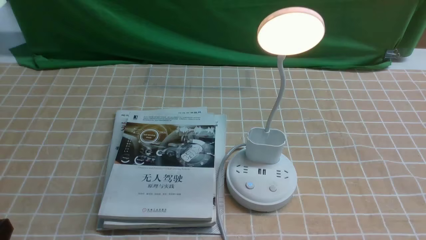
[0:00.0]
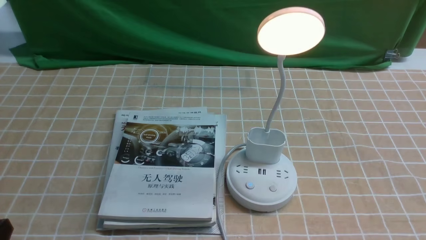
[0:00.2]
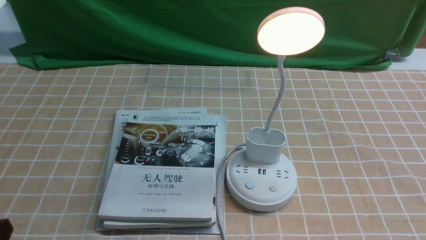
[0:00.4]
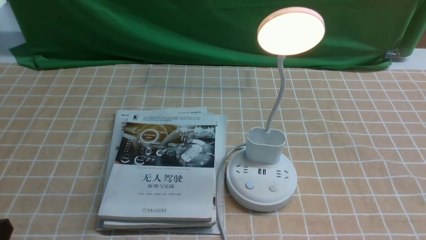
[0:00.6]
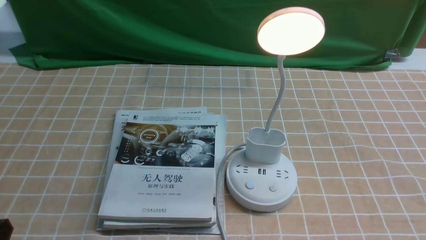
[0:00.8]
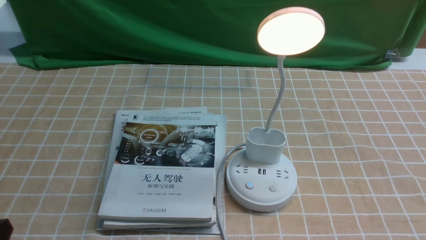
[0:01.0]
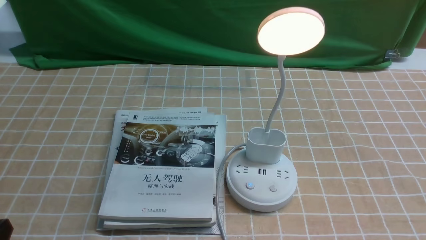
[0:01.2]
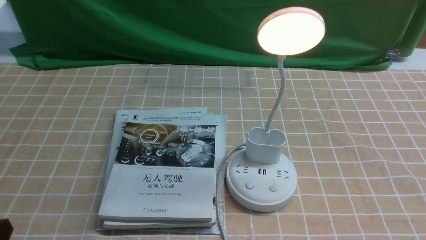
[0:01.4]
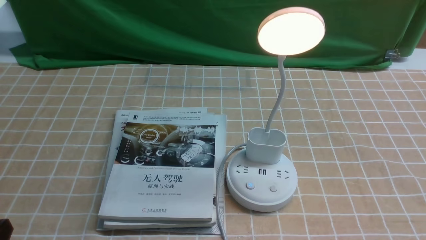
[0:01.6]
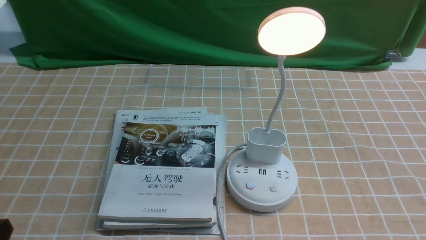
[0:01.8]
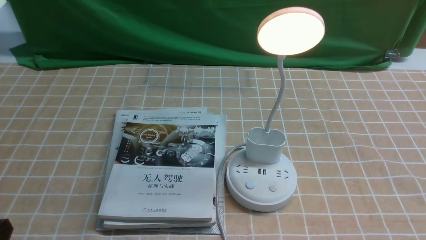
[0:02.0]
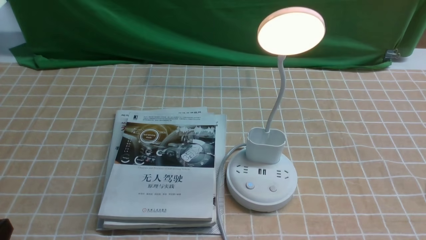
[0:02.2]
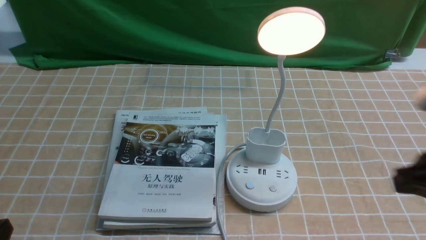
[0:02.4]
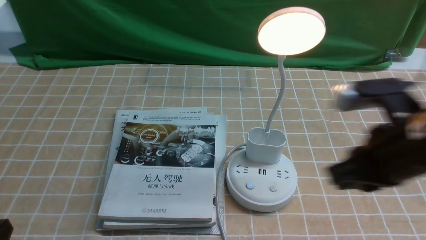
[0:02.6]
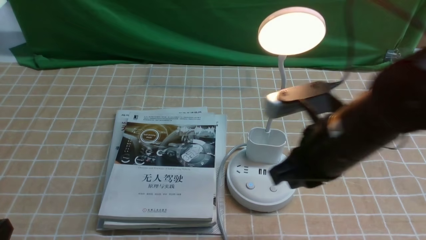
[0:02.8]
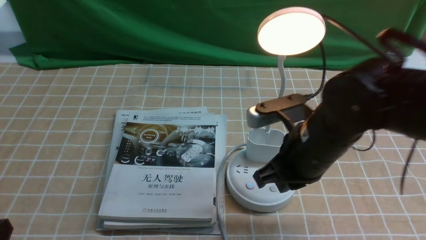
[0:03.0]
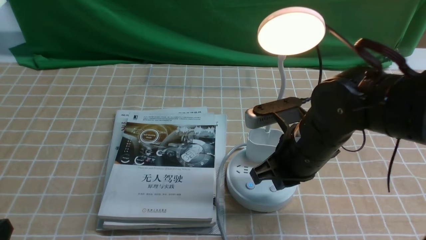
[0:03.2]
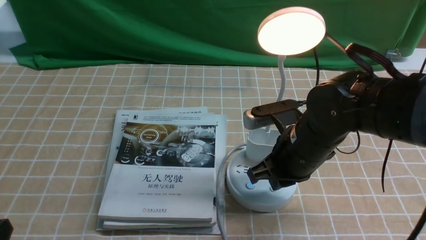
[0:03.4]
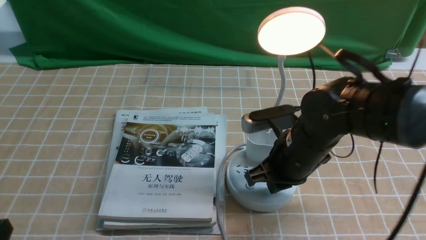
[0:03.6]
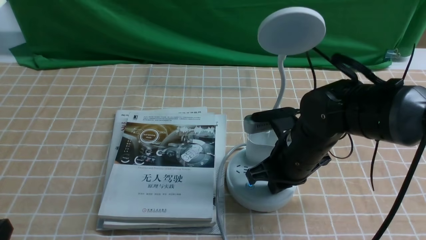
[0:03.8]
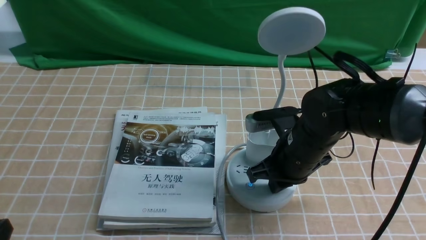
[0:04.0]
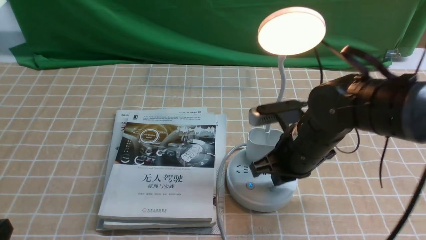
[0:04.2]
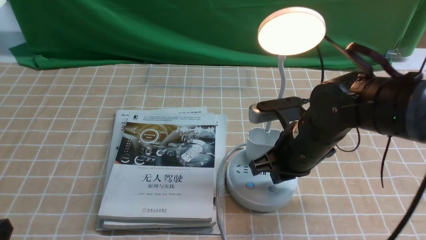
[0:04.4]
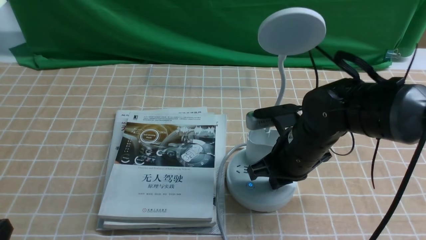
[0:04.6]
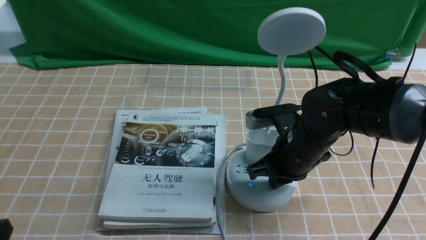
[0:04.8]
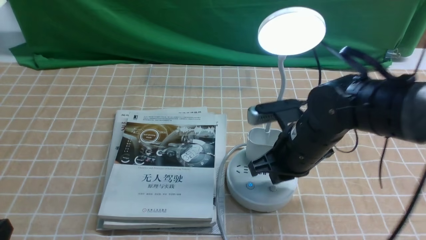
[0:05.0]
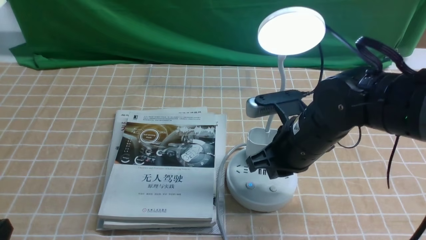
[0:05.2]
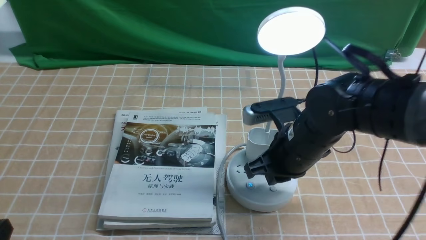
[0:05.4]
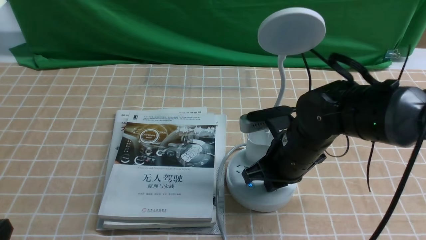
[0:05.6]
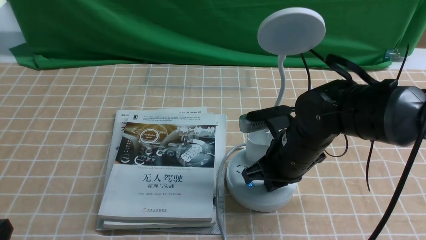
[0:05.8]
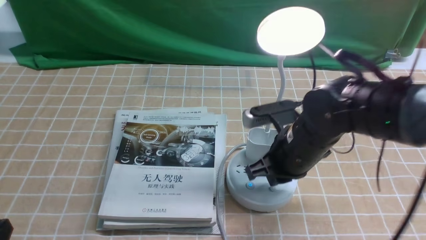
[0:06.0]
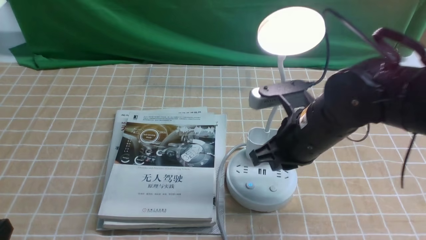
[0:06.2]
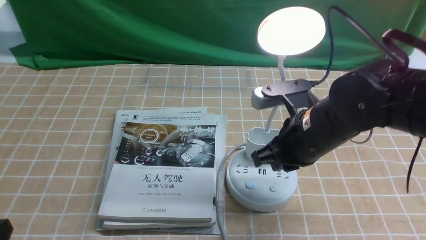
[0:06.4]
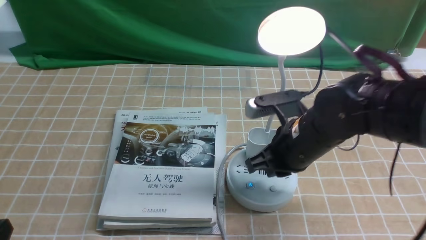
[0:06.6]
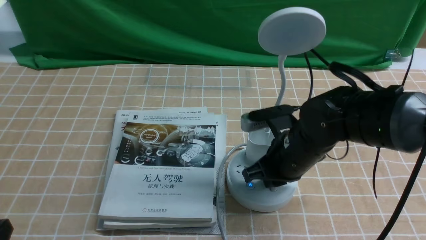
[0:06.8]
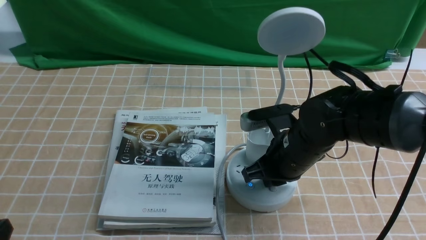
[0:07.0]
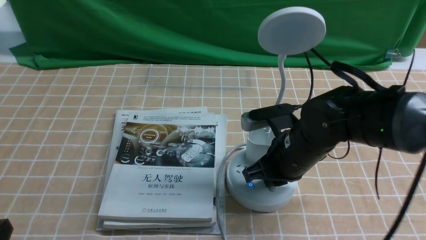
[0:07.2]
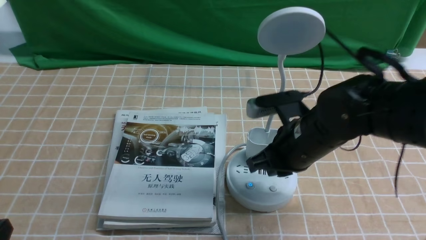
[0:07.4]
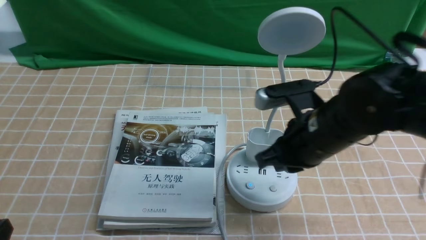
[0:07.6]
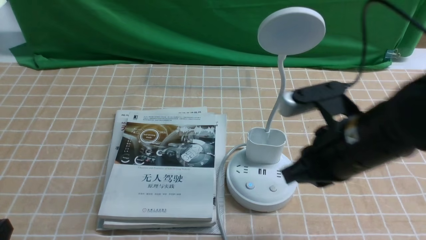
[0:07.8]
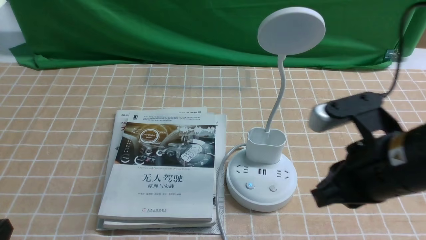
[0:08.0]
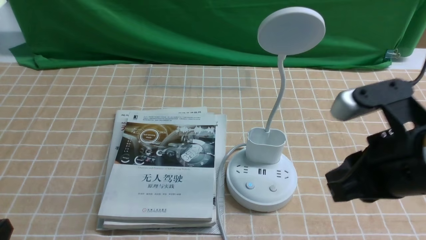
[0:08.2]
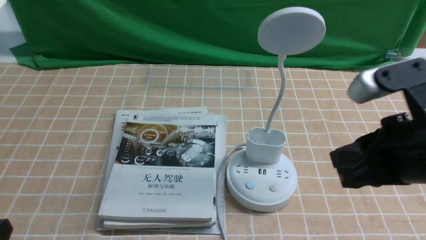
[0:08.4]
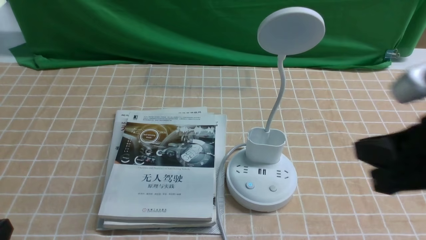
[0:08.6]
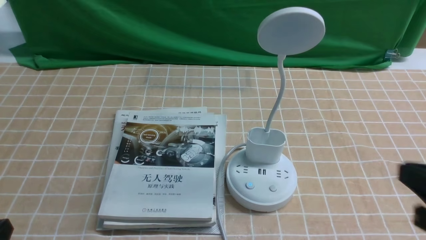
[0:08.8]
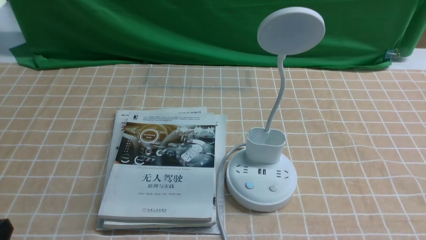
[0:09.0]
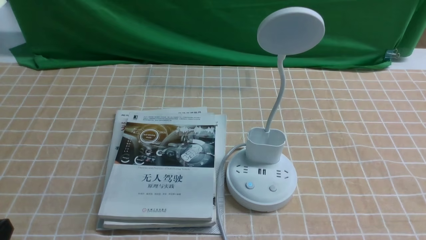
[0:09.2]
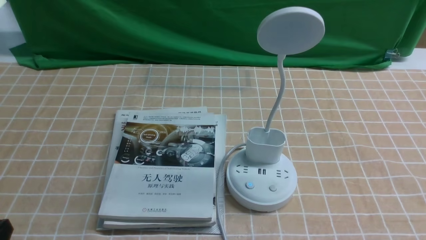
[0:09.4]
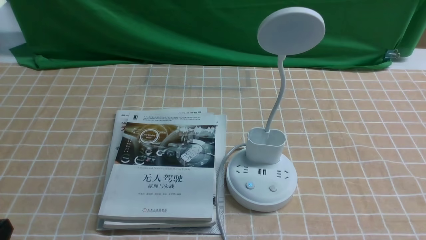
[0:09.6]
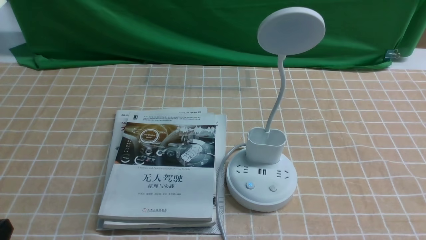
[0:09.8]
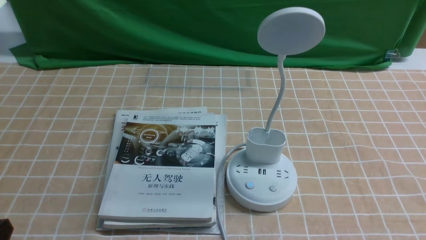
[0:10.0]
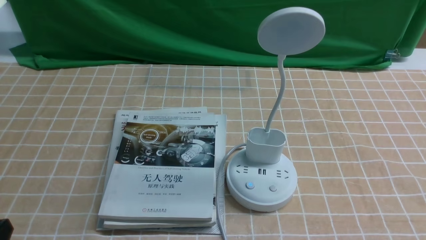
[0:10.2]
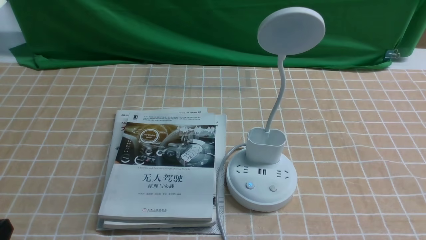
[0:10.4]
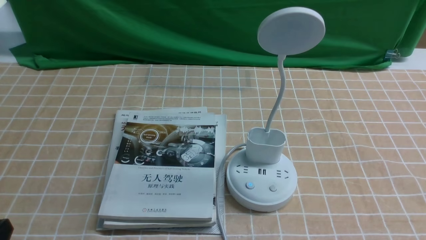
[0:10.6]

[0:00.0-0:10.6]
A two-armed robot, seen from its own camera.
Task of the whole recording: turn off the desk lamp on the light coffee tablecloth by hand.
Step, 0:00.0 to 0:07.2: use the right arm to press the button switch on the lamp holder.
0:01.6 to 0:03.0: The right gripper moves forward and to the left, about 25 cm, and closes its fingers.
0:03.0 to 0:04.6: The right gripper travels downward by some 5 cm.
0:07.6 to 0:09.0: The right gripper goes roughly 25 cm backward and to the right.

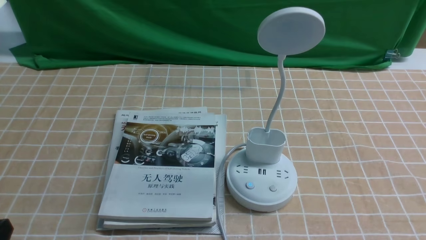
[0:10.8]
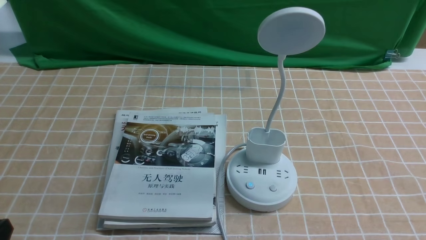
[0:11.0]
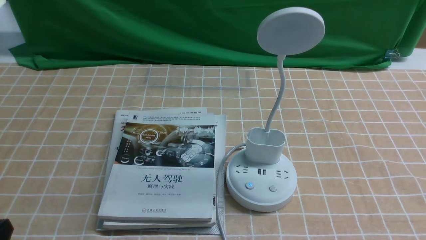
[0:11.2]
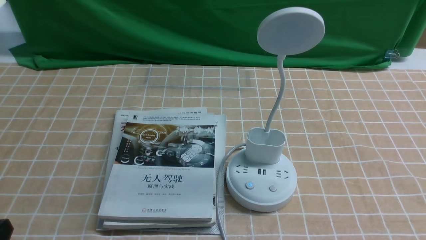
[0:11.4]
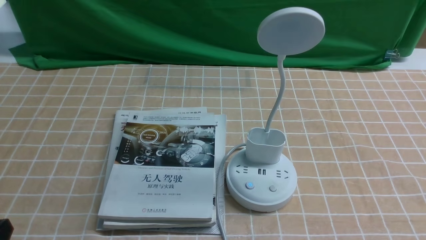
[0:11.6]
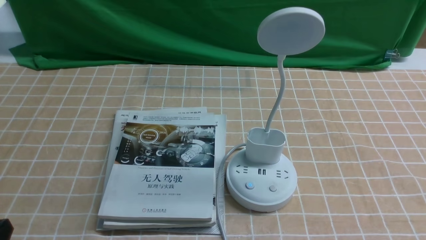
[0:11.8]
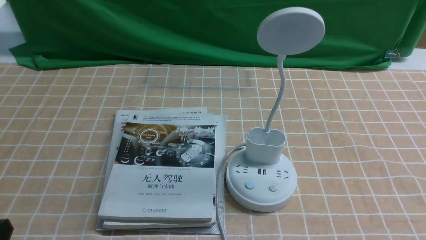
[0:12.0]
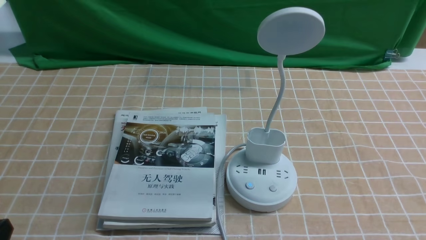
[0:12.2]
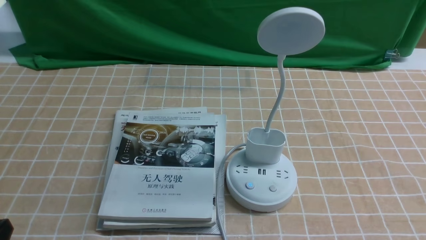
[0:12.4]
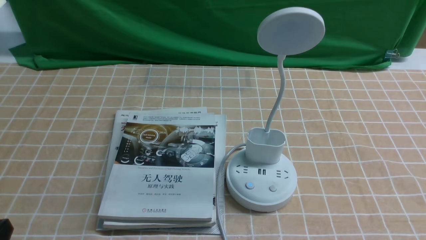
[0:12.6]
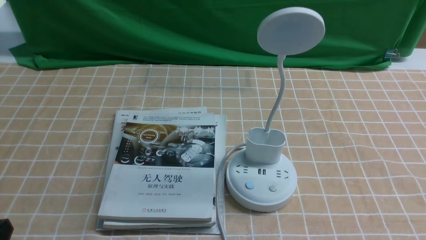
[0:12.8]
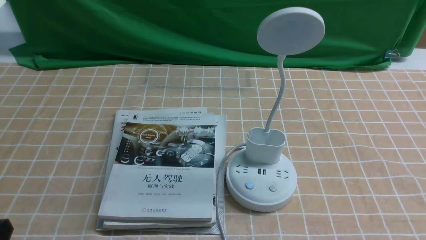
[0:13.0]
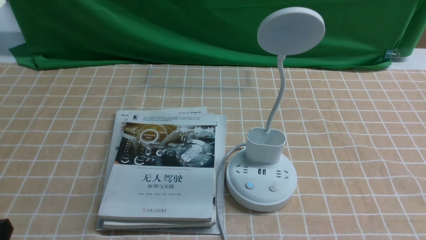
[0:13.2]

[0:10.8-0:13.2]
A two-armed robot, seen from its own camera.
Task of the whole recording: turn off the desk lamp on the light coffee tablecloth by hand.
0:12.0 to 0:13.2: Both grippers stay about where they are.
